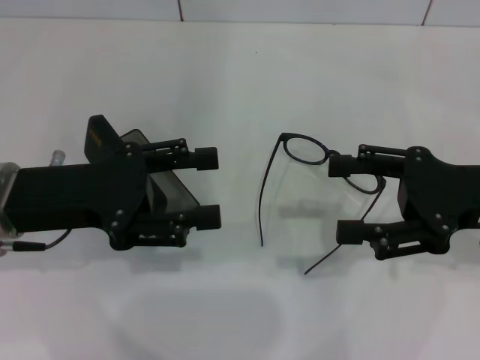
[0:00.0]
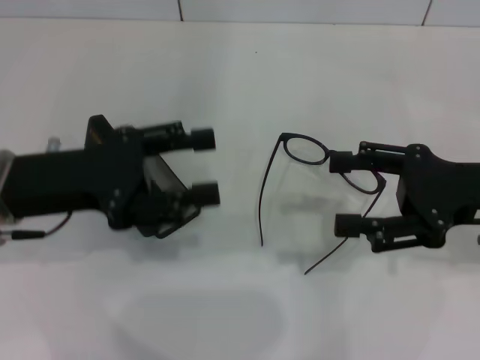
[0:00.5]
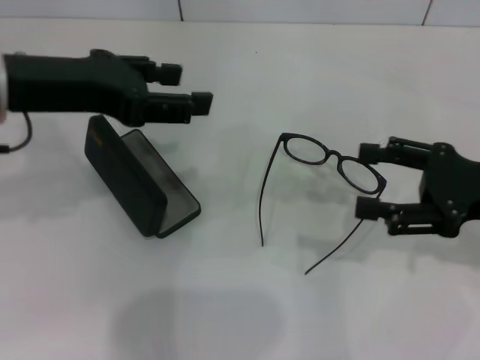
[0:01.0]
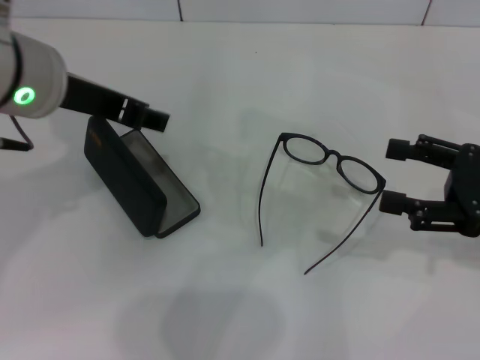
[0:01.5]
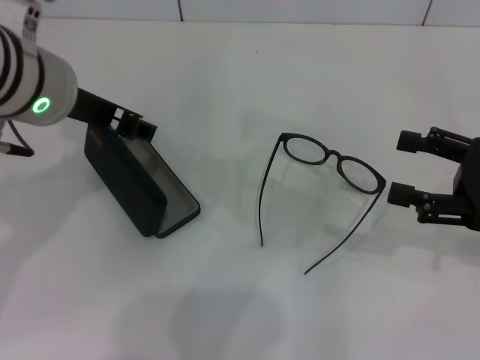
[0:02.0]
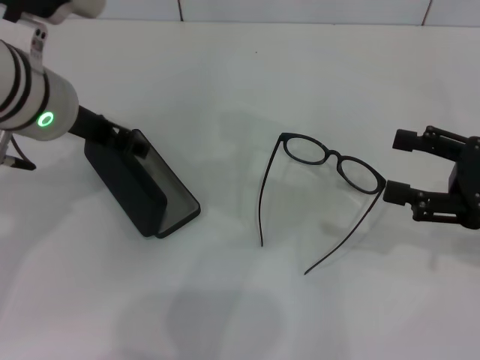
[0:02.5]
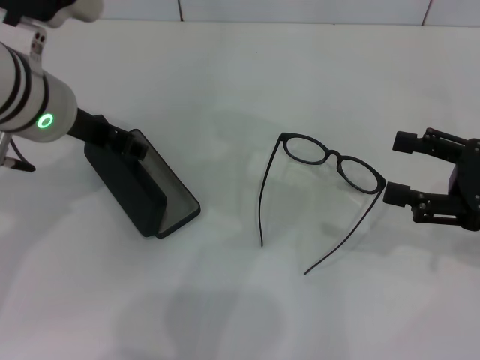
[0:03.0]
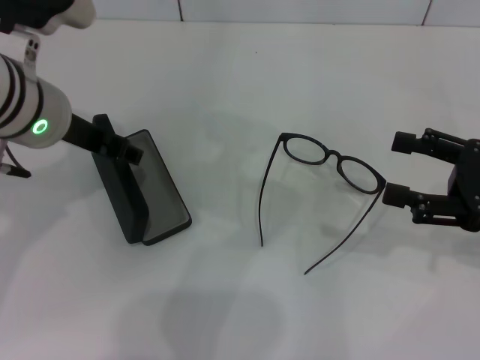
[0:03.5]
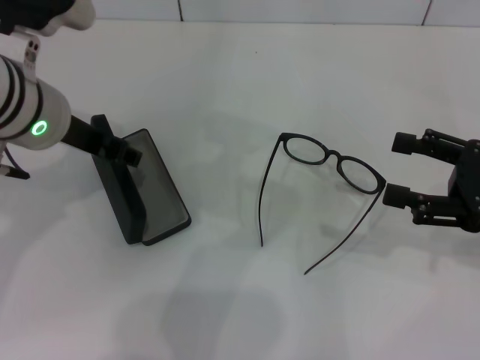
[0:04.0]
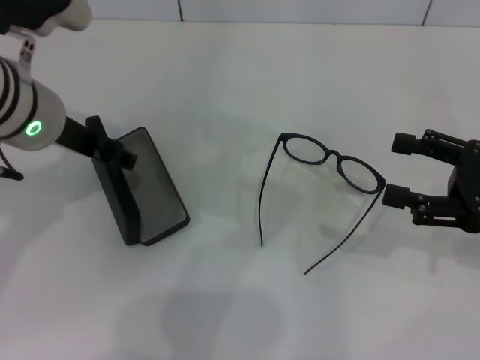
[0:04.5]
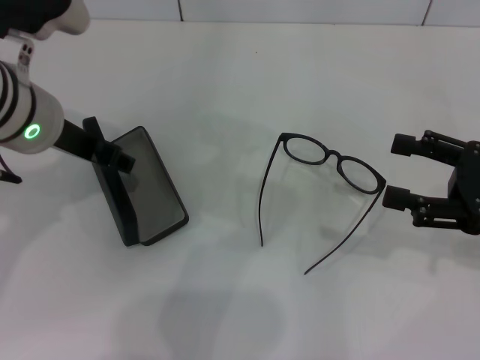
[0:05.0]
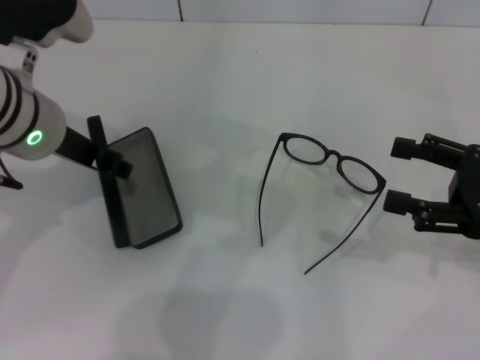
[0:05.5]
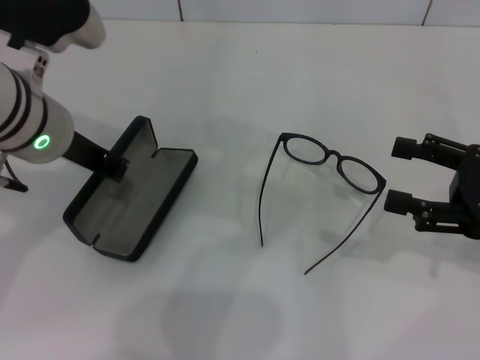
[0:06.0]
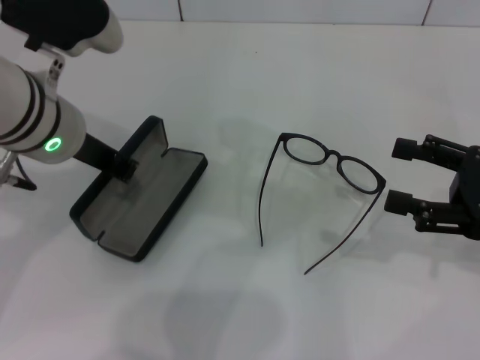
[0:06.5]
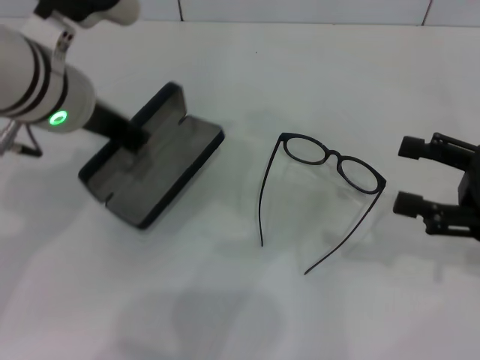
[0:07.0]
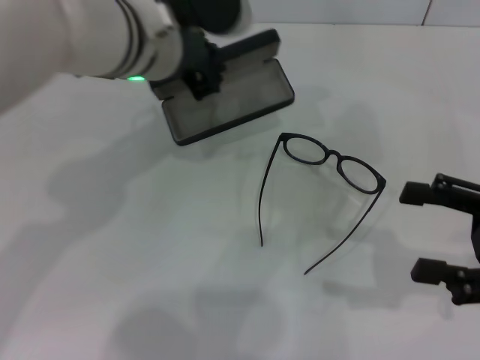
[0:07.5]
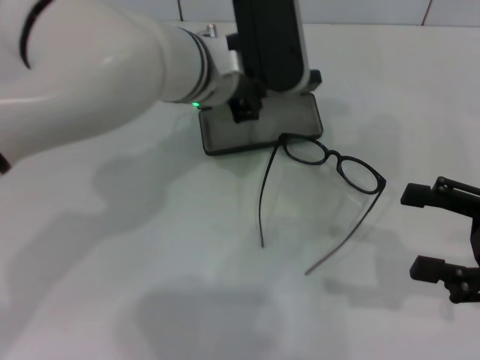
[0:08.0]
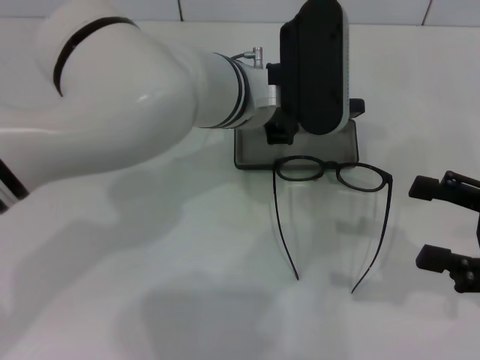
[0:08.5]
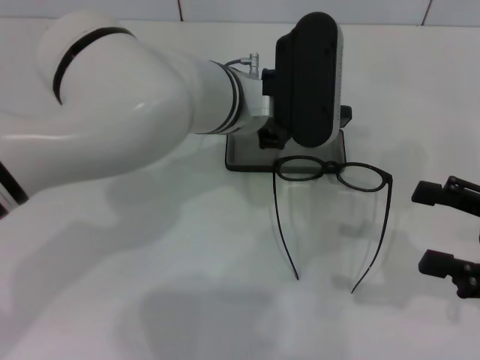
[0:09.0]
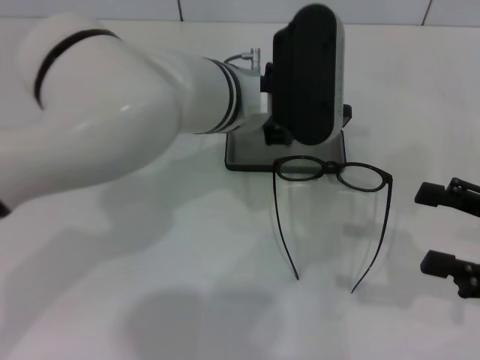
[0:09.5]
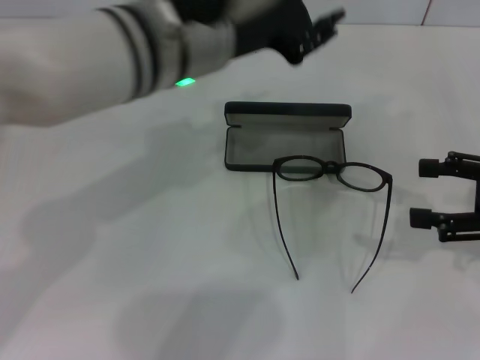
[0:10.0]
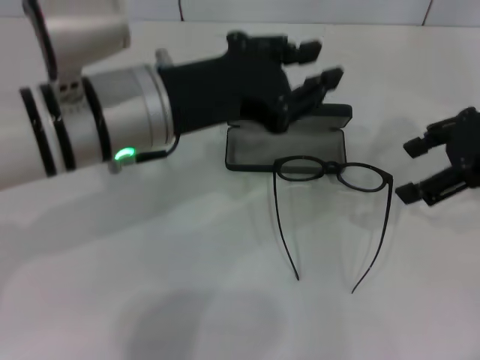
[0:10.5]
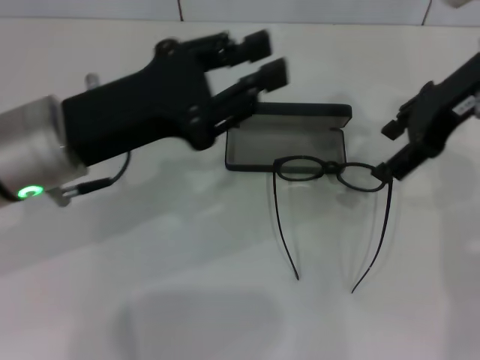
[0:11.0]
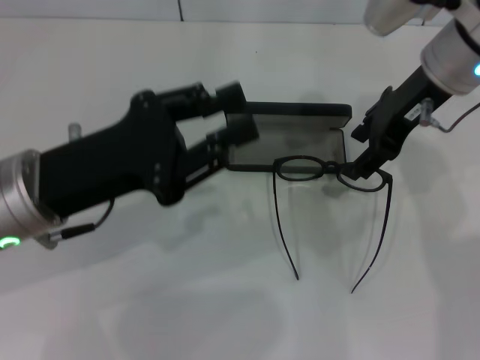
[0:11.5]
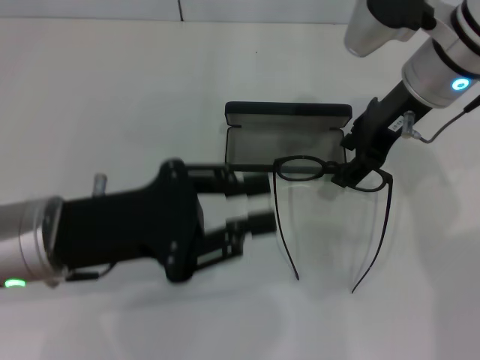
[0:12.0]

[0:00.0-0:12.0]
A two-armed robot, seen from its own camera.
Step, 0:00.0 to 0:06.0: Grab the glasses case with your left hand.
Step, 0:06.5 to 0:08.5: Place the glasses case in the center of the table with your left hand.
0:00.0 to 0:02.0: The right gripper is displaced to the right by approximately 5 cm, while the left gripper shifts roughly 15 cm upward, to the right and forward.
0:02.0 to 0:04.0: The grippers make only small movements.
0:04.0 to 0:06.0: The left gripper closes.
0:06.0 to 0:08.0: The left gripper is displaced to the right and forward by about 15 cm.
0:08.0 to 0:10.0: The right gripper moves some 5 cm. The left gripper is displaced upward and backward by roughly 10 cm.
0:10.0 to 0:12.0: The left gripper goes about 20 cm to the left, downward and backward; the right gripper goes some 20 cm to the left and forward.

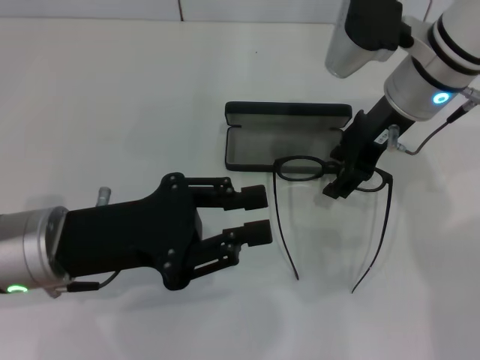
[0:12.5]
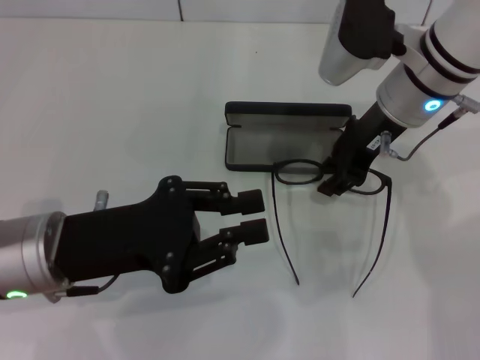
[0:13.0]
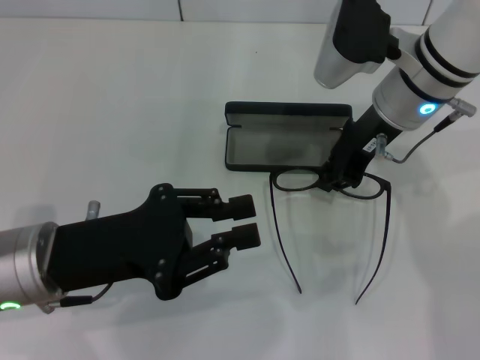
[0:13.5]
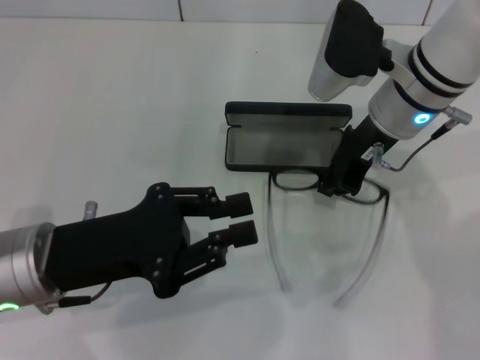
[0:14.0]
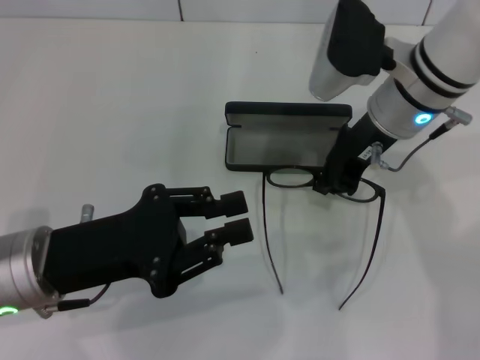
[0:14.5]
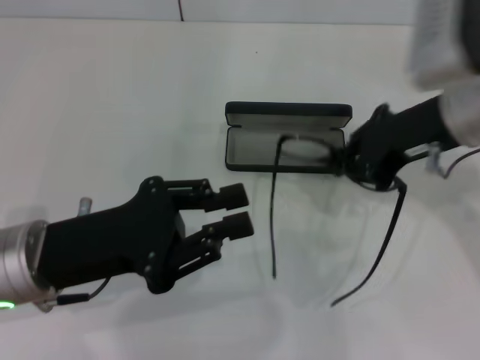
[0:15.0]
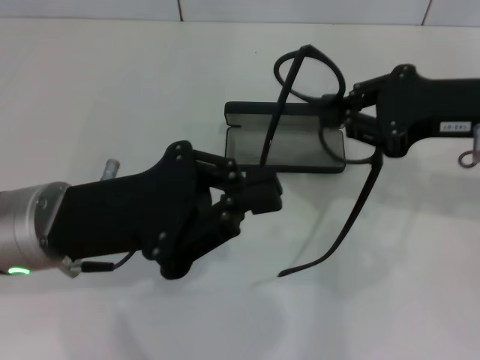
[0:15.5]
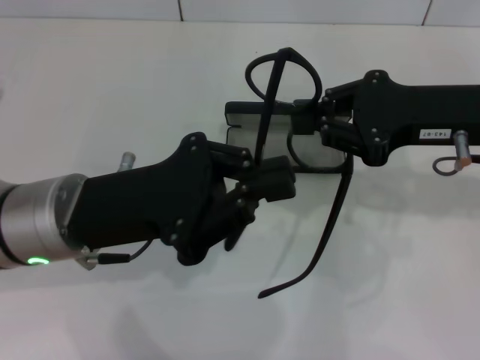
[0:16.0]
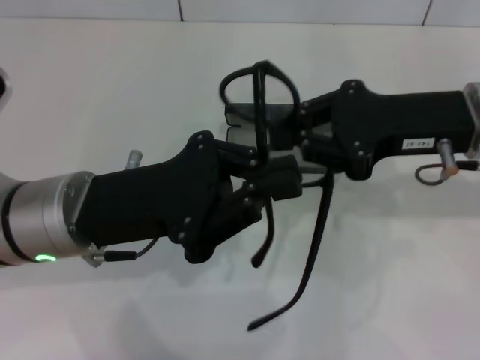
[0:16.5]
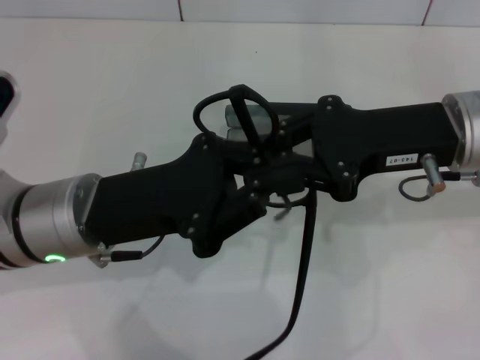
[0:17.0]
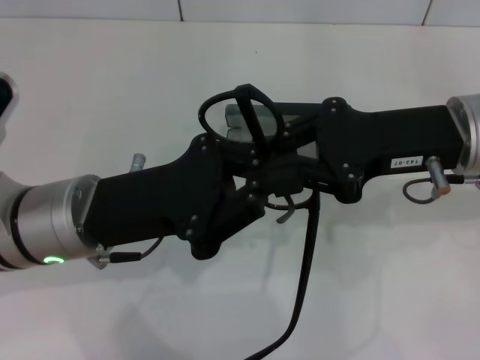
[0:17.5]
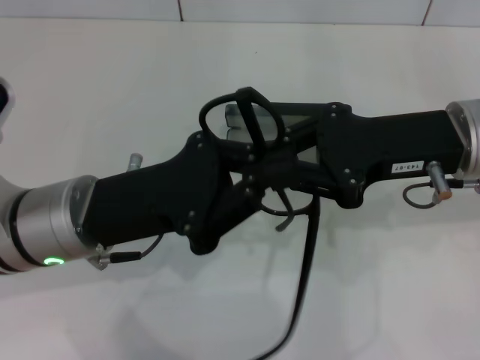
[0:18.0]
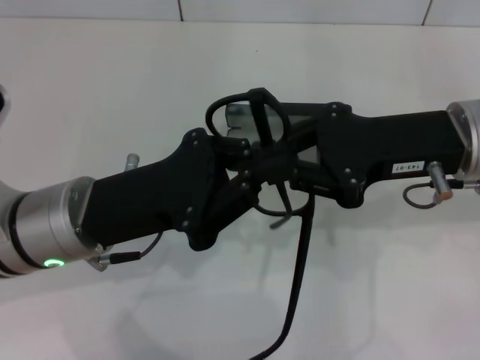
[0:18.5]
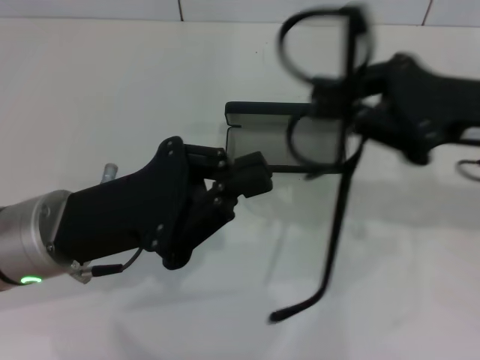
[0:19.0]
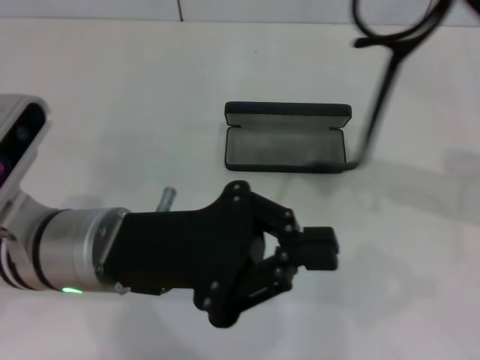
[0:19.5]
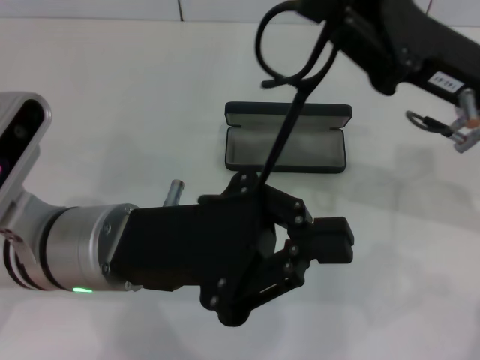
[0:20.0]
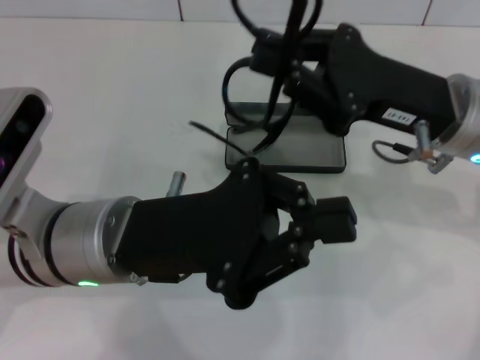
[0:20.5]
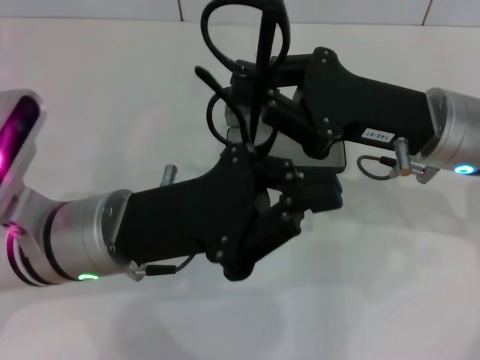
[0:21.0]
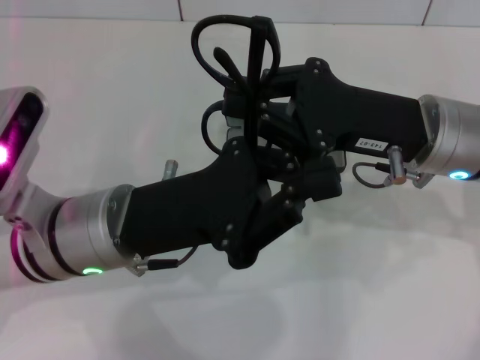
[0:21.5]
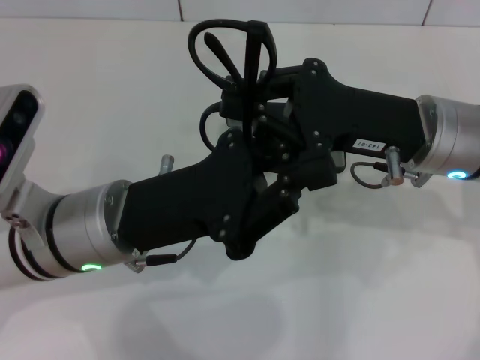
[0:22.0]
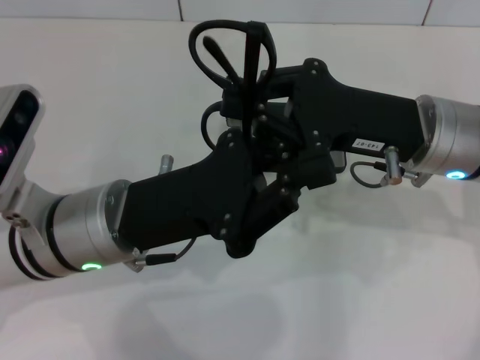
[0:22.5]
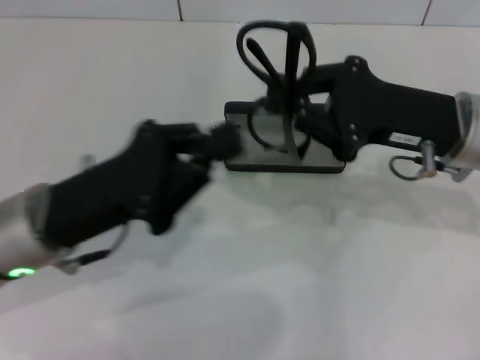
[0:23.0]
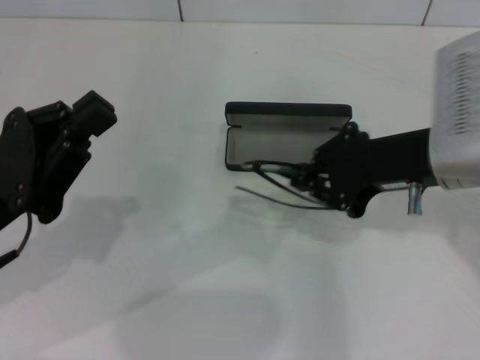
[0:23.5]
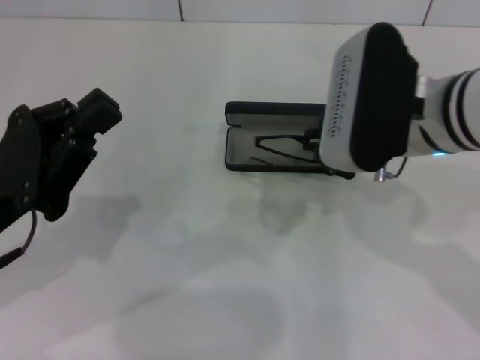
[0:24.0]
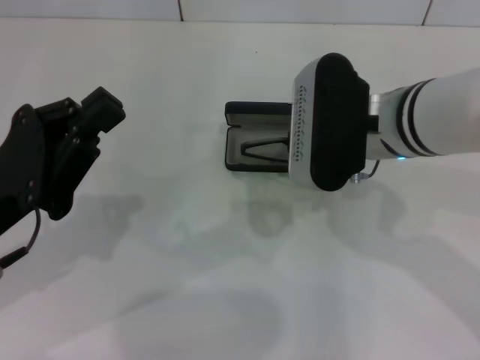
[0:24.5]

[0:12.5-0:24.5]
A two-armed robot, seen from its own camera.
Step, 0:14.5 to 0:22.0: Fold the frame with your left hand.
0:12.5 to 0:14.5: The right gripper closes up.
0:14.5 to 0:16.5: The left gripper shifts by about 5 cm, while the right gripper goes about 10 cm to the right and backward.
0:16.5 to 0:18.5: The grippers make only small movements.
0:18.5 to 0:20.5: The right gripper travels to the right and back again, approximately 5 cm each way.
0:22.5 to 0:24.5: The right gripper moves to the left, about 5 cm, while the left gripper moves to the left, about 10 cm.

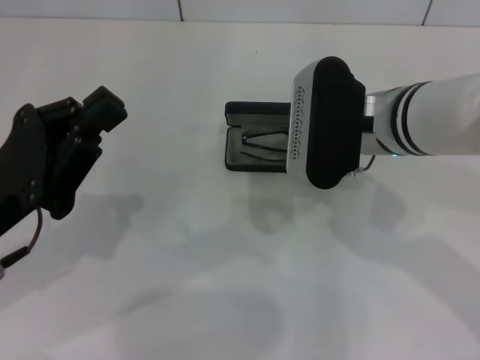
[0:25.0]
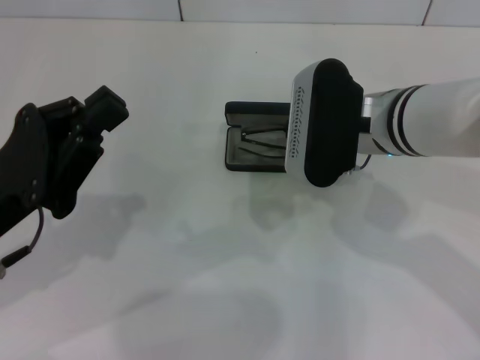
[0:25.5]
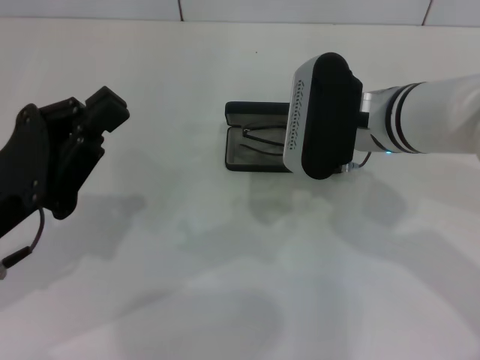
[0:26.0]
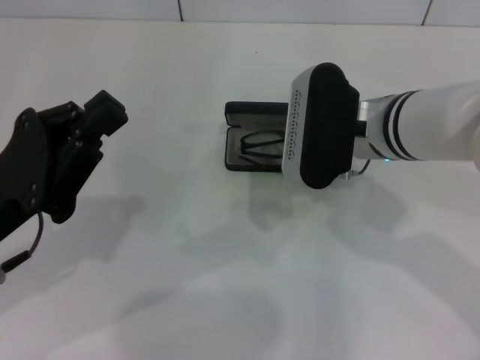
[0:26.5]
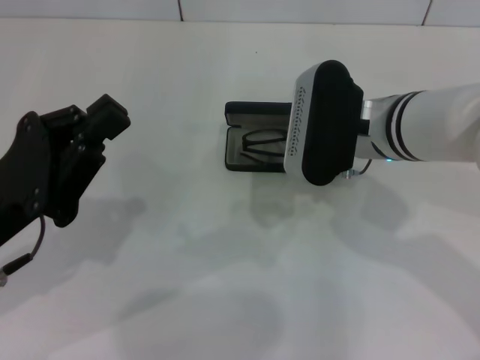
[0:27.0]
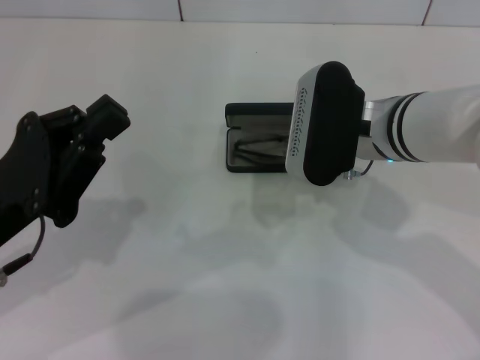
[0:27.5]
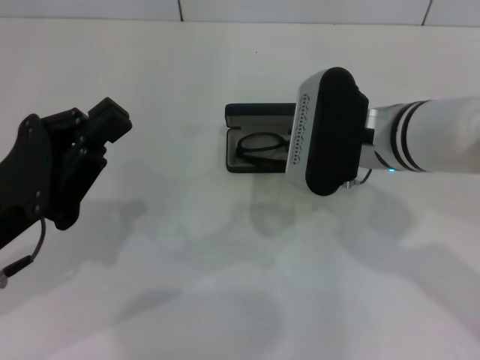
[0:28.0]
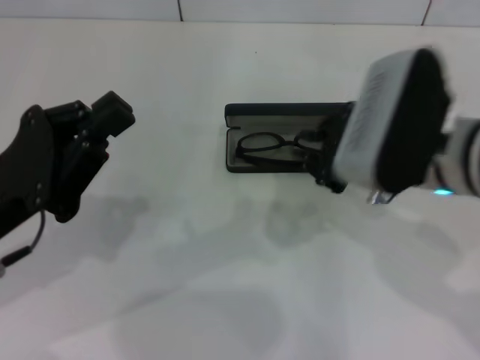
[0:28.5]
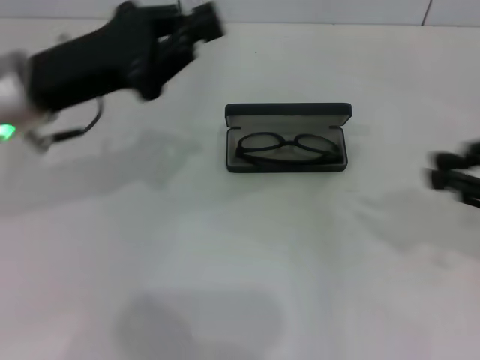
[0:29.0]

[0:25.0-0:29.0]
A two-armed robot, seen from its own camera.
Step, 0:25.0 to 0:27.5: Put the glasses into the case with your right hand.
0:25.0 to 0:27.0: The grippers move only a little.
0:27.0 to 0:29.0: The left gripper moves forward and upward, roughly 15 cm. Meanwhile the right gripper is displaced to the right and backward by approximately 20 cm.
